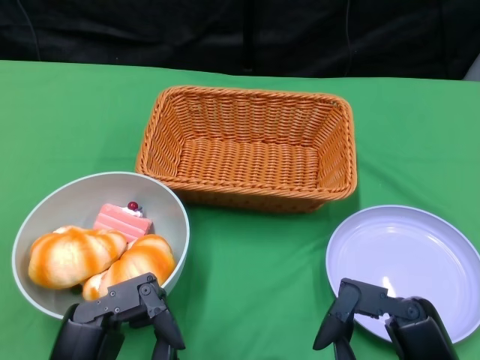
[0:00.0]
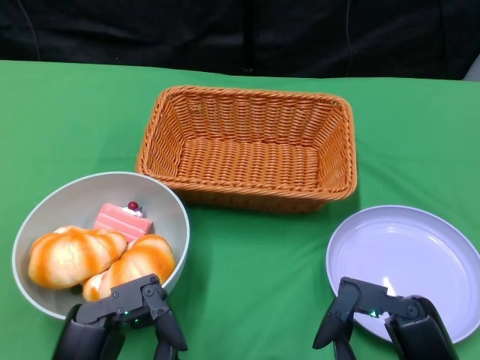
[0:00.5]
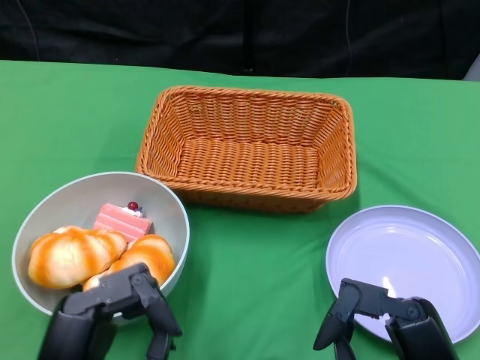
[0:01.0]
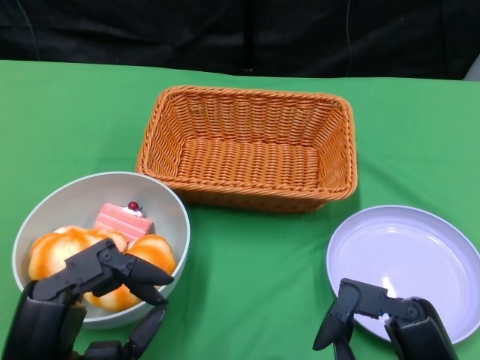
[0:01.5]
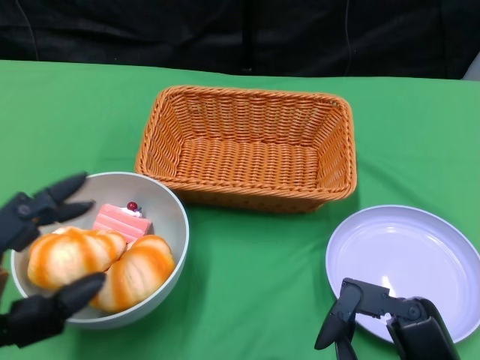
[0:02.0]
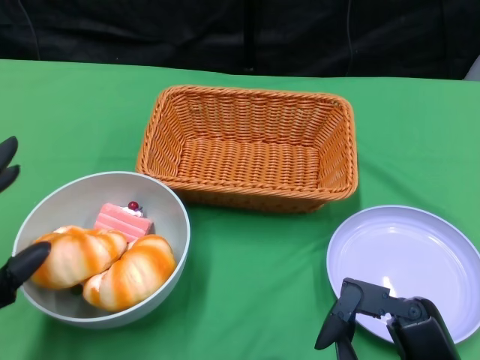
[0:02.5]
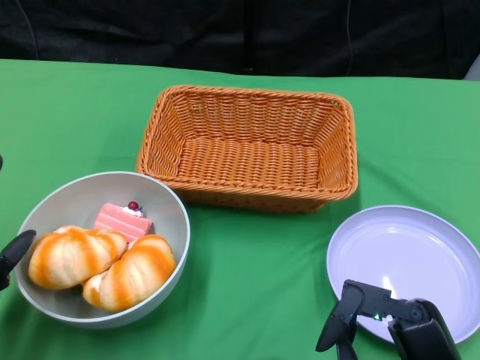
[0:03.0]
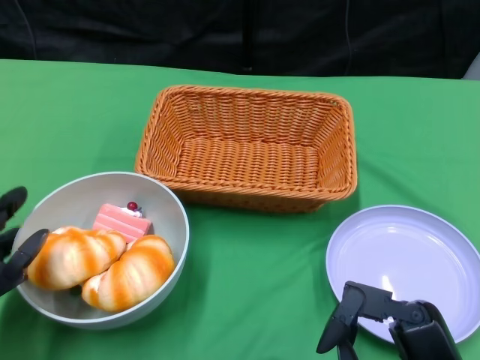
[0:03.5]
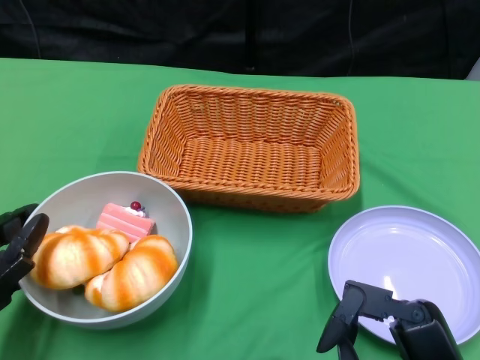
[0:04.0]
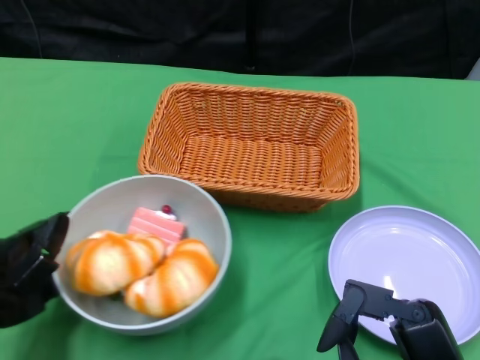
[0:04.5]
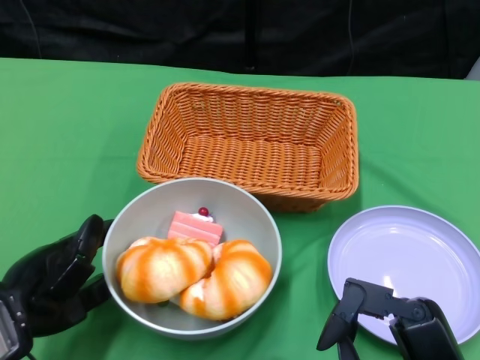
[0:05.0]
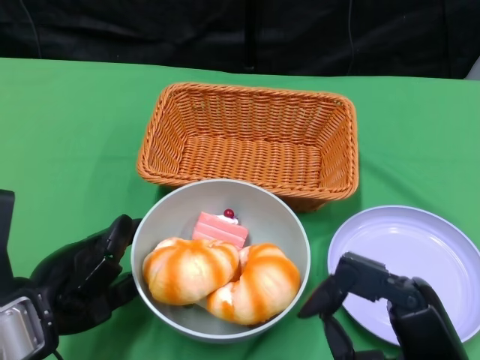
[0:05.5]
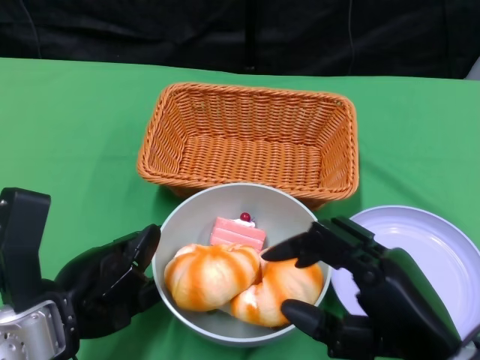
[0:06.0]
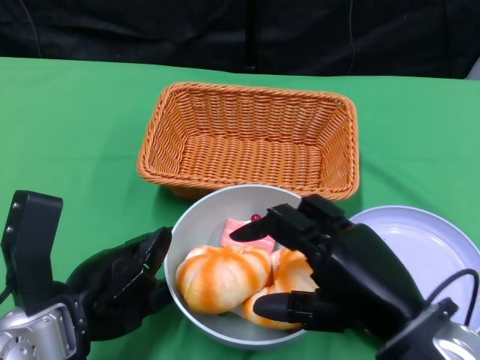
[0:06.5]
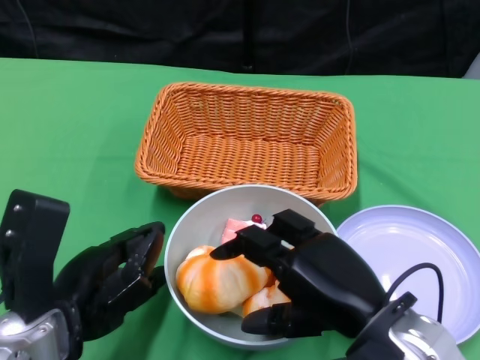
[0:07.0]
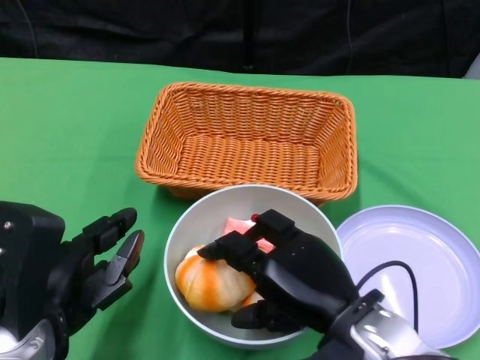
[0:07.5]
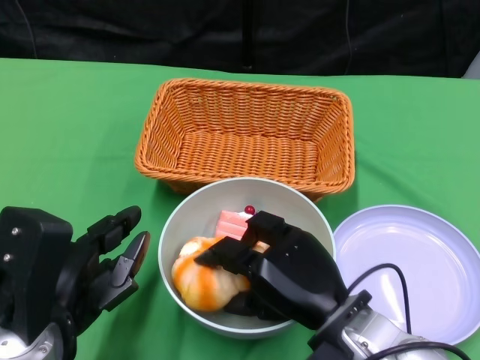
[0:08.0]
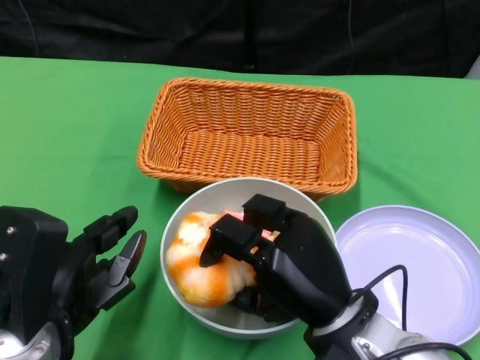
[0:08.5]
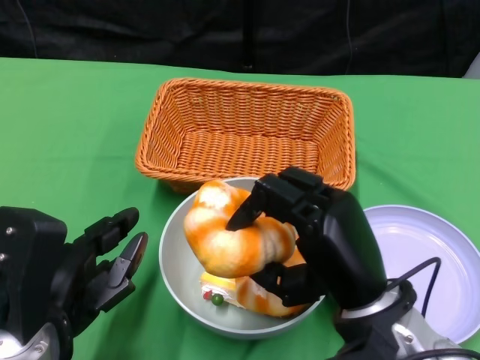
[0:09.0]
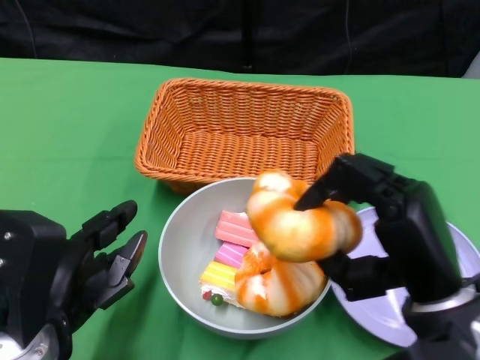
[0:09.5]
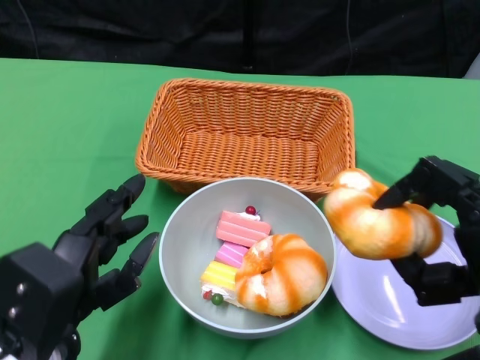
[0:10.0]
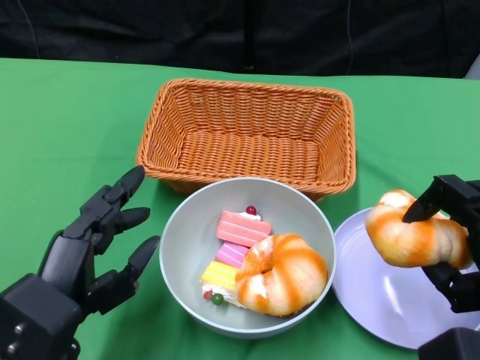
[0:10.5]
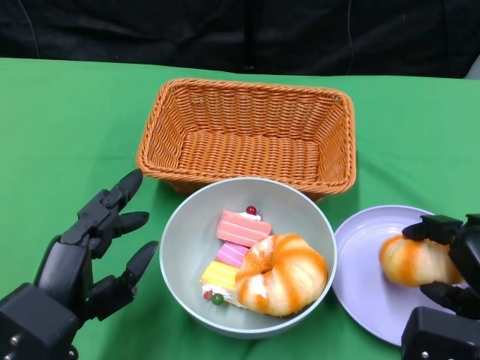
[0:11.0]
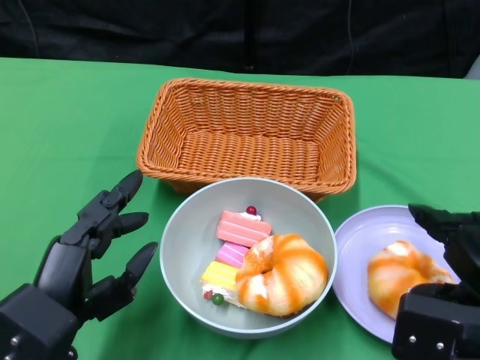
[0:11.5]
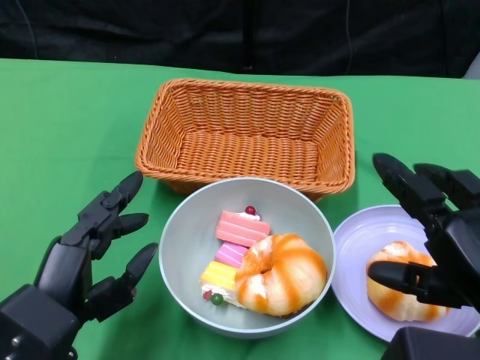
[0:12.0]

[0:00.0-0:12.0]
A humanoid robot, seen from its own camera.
Step, 0.0 to 6.0 s: Push the bowl to the center of the table using the left gripper.
Step, 6.5 to 11.5 s: Pick up the bread with the right gripper and place it on the plate.
2.0 to 4.0 s: The left hand travels forward and to the left by some 10 cm.
4.0 to 6.0 s: The right hand changes place by about 5 cm; the left hand moves to the right, roughly 10 cm.
6.0 to 8.0 s: The right hand is displaced to the left, forward and downward by about 10 cm.
8.0 to 10.0 s: The right hand is displaced to the right and upward by approximately 15 cm.

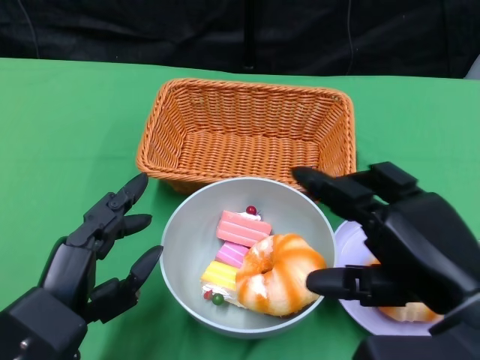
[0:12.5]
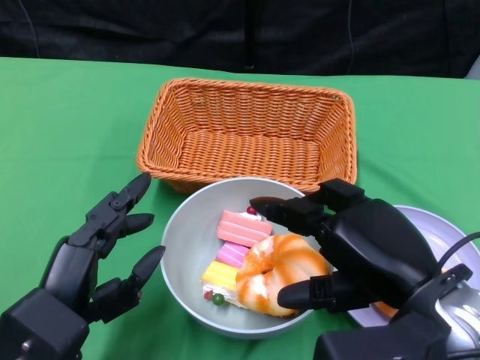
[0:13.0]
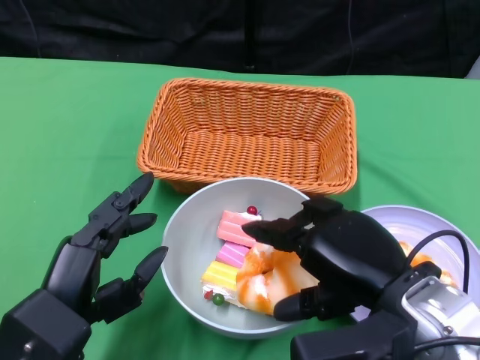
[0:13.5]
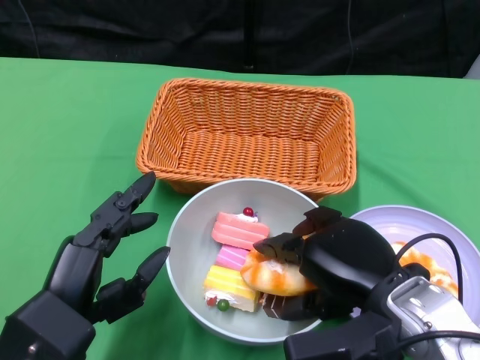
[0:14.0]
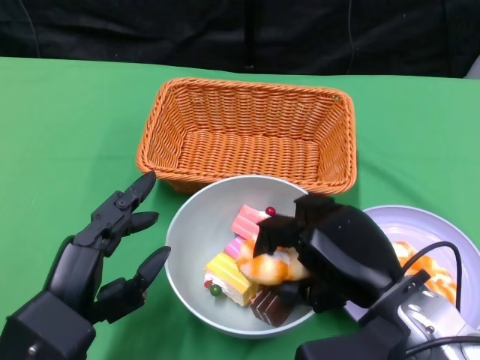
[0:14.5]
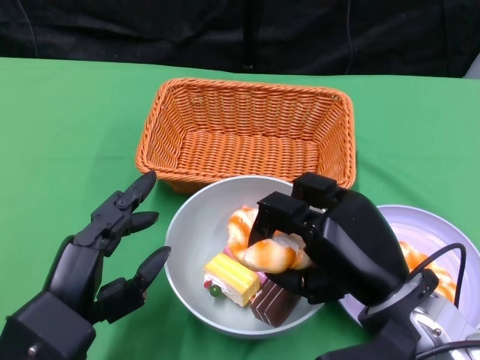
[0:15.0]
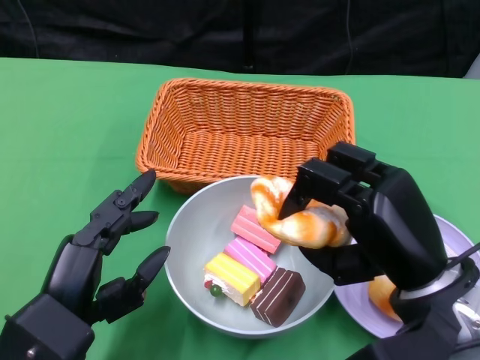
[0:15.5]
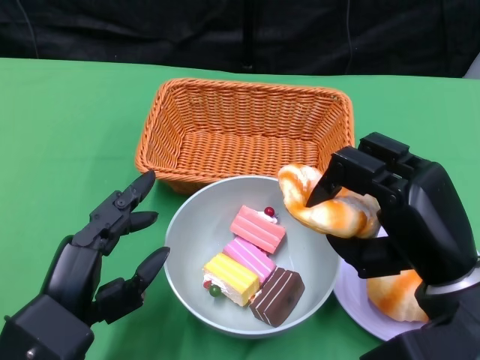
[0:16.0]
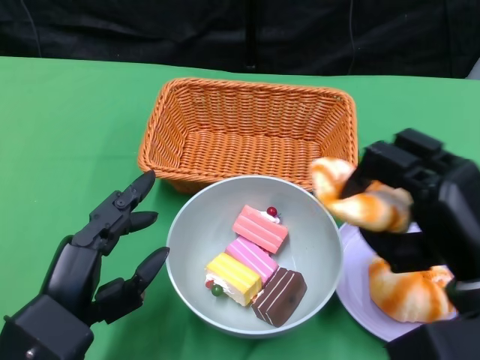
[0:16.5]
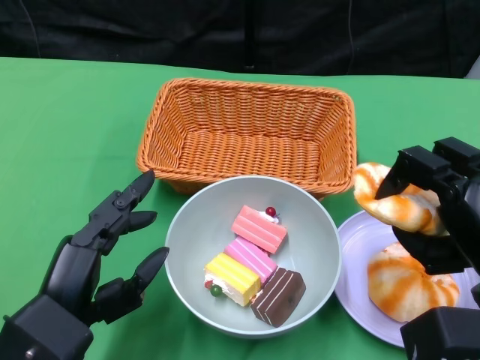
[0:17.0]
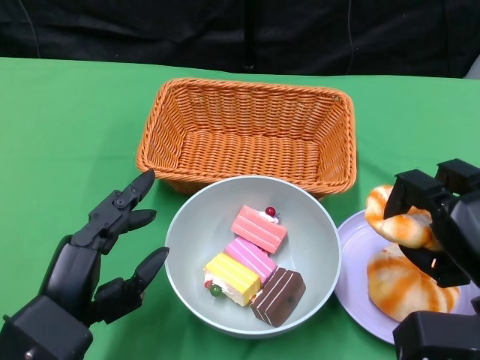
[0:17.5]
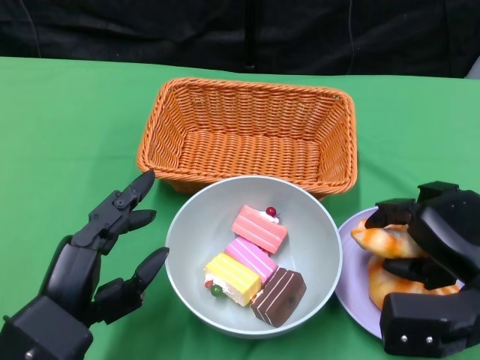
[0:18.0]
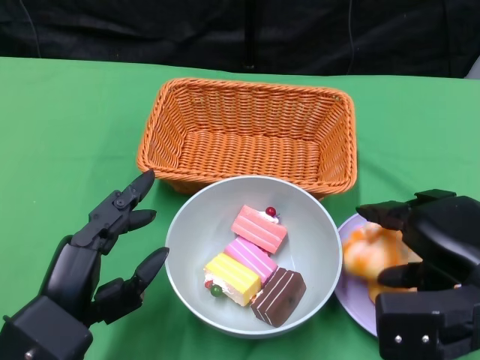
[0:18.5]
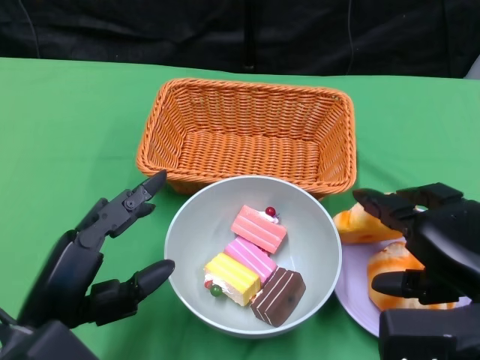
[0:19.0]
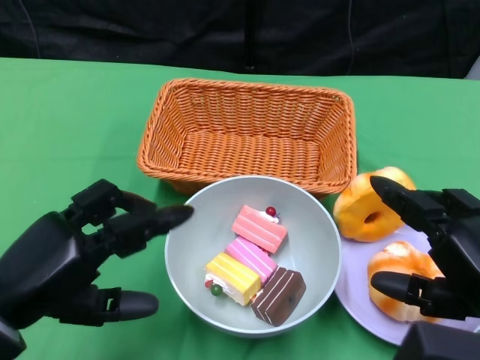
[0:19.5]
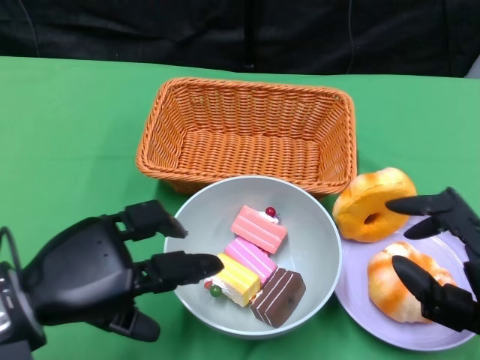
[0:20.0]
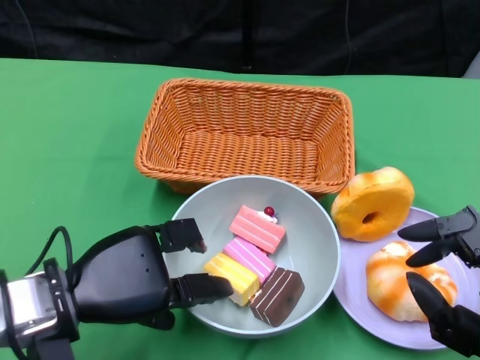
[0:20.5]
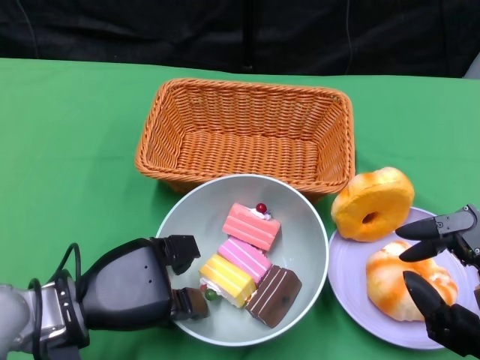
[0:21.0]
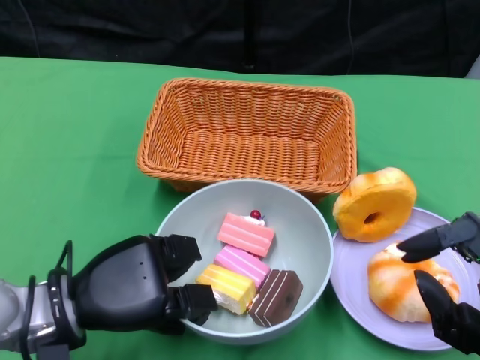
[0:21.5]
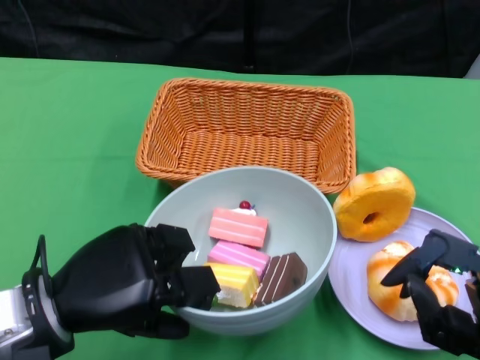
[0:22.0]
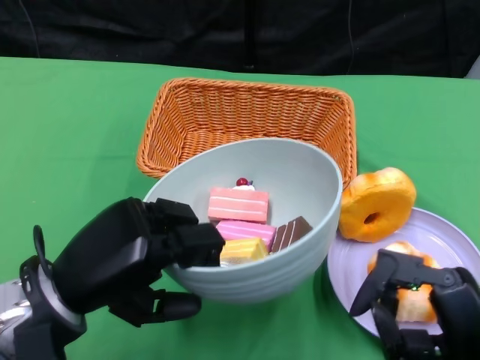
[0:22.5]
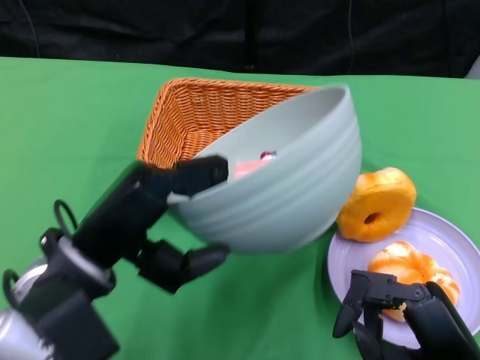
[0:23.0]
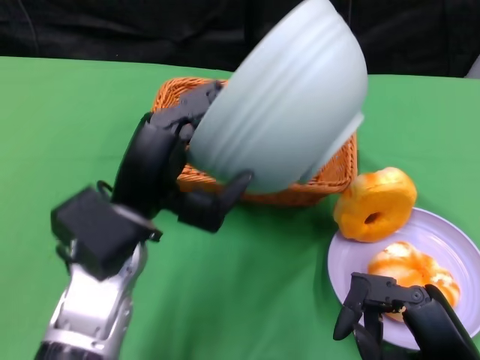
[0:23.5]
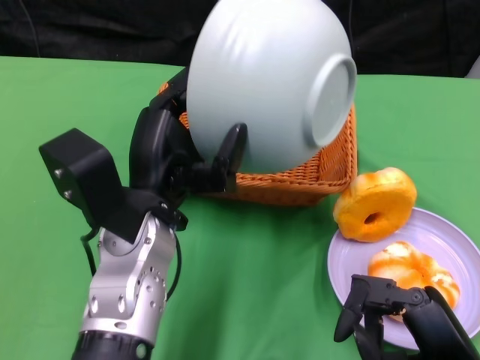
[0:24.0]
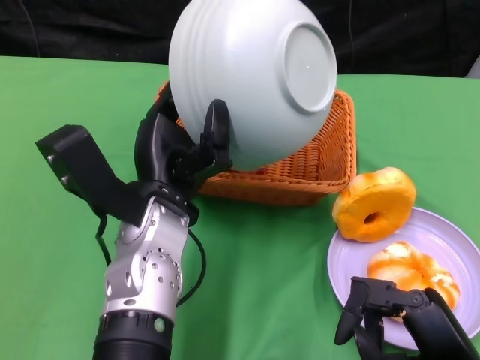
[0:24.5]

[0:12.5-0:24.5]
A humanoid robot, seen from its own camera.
Step, 12.5 to 19.0 s: Pick up the bread with the right gripper and place it on the plate.
Step, 19.5 to 21.0 s: Grasp the bowl with the left gripper.
12.5 to 14.5 s: The right hand shifts about 5 cm downward.
14.5 to 16.5 s: The right hand is displaced to the right by approximately 5 cm.
18.5 to 20.5 s: The left hand moves forward, roughly 5 cm. Meanwhile the right hand is displaced backward by about 10 cm.
22.5 to 24.5 s: The left hand goes approximately 10 cm to the right and forward.

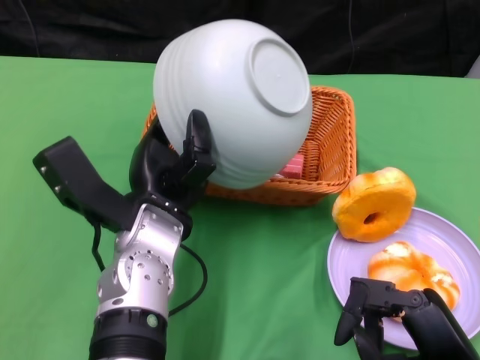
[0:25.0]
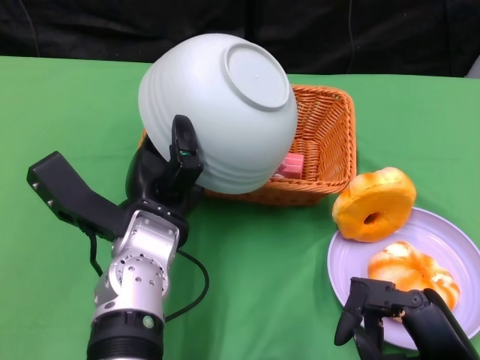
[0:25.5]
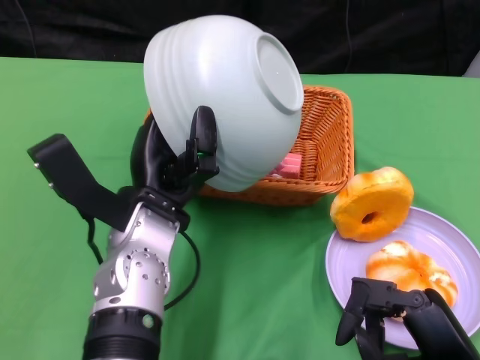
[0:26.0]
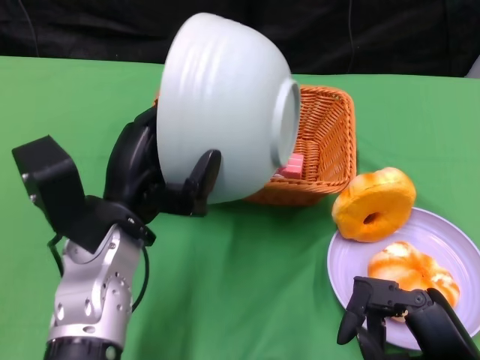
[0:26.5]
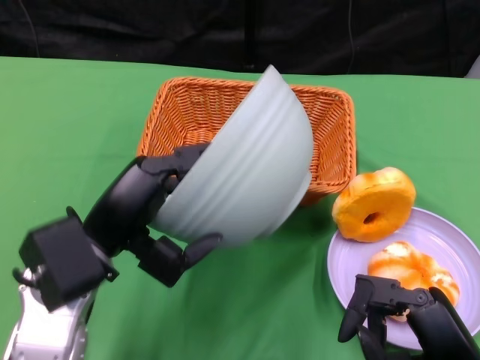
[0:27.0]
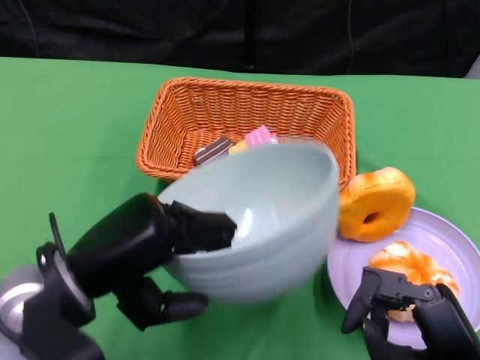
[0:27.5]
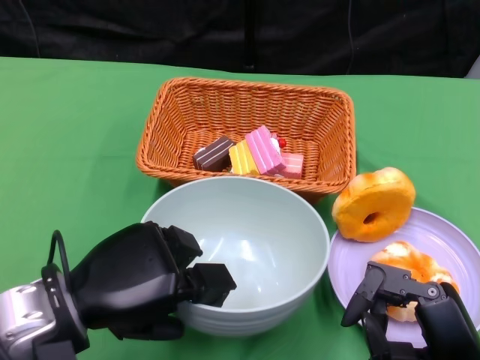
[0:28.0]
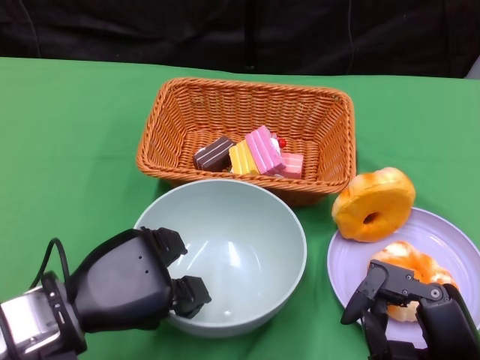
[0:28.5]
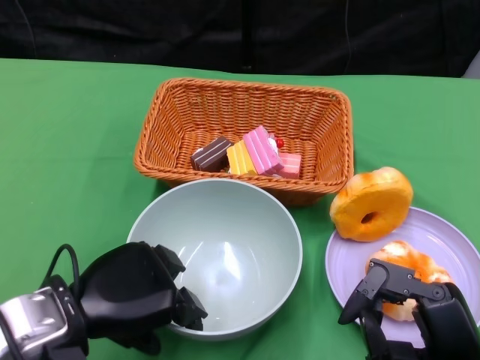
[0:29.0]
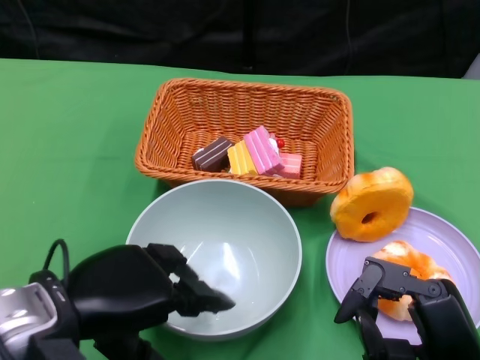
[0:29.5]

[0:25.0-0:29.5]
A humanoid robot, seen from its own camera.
Step, 25.5 to 29.0 s: Place the bowl on the table with the left gripper.
25.0 to 27.0 s: The left hand is displaced to the left by about 10 cm.
27.0 to 29.5 s: The left hand changes place by roughly 5 cm.
